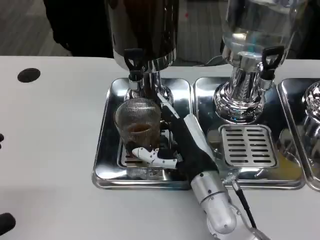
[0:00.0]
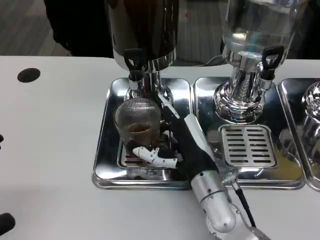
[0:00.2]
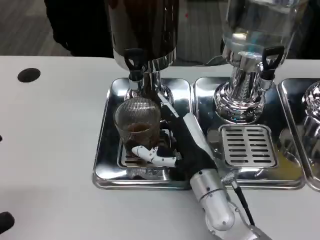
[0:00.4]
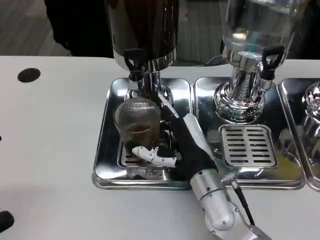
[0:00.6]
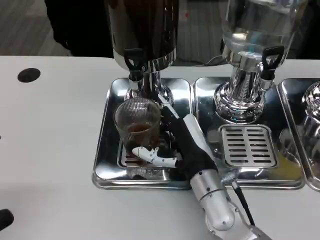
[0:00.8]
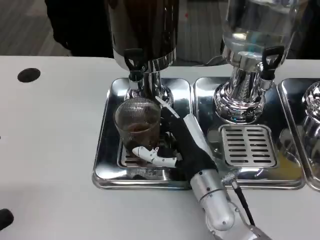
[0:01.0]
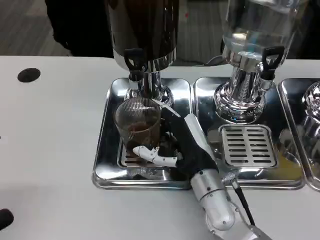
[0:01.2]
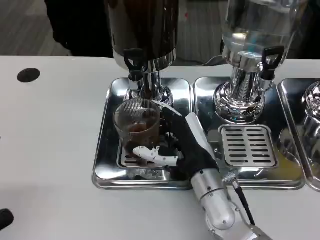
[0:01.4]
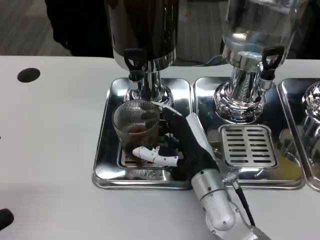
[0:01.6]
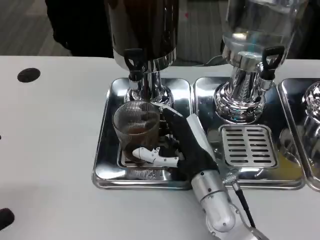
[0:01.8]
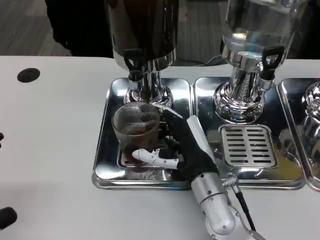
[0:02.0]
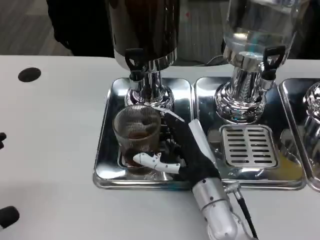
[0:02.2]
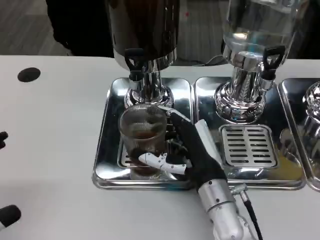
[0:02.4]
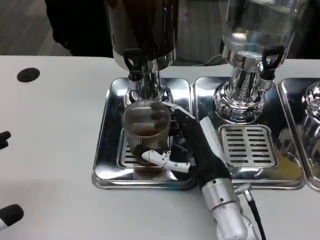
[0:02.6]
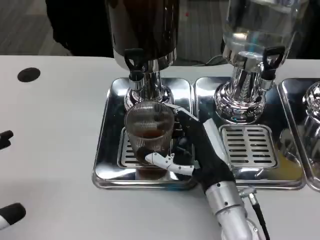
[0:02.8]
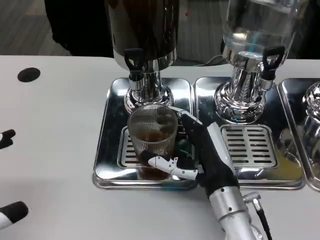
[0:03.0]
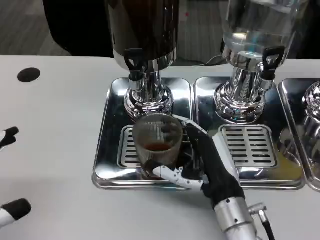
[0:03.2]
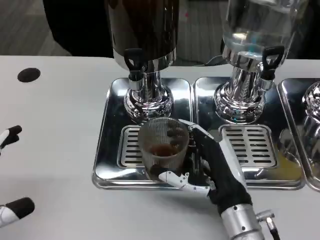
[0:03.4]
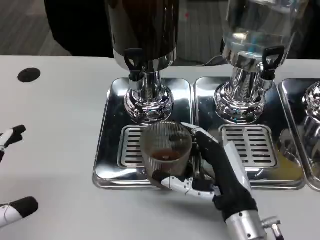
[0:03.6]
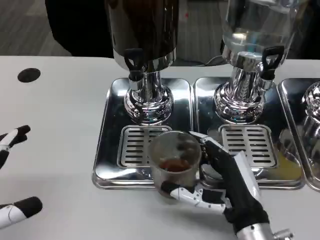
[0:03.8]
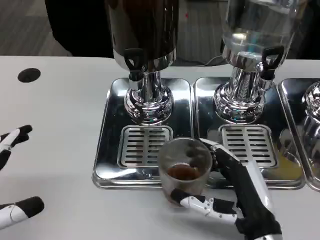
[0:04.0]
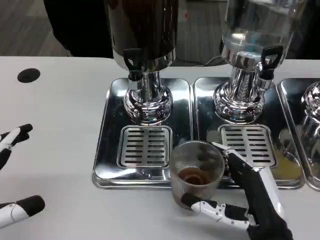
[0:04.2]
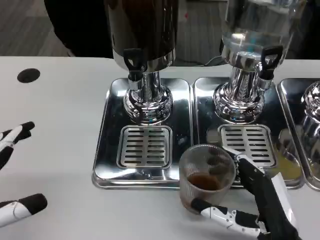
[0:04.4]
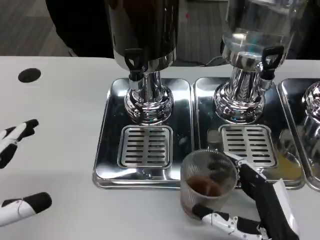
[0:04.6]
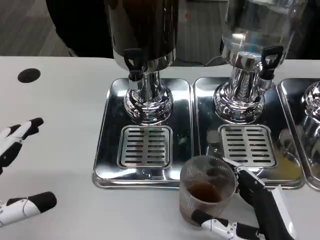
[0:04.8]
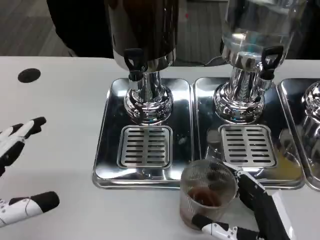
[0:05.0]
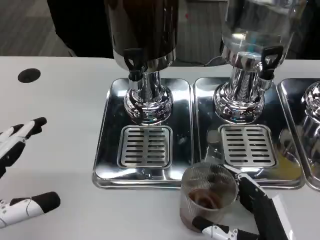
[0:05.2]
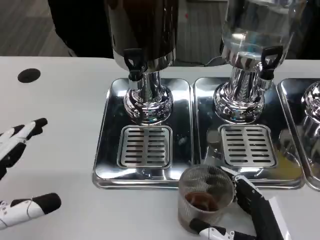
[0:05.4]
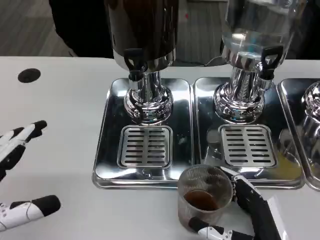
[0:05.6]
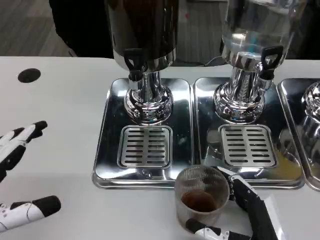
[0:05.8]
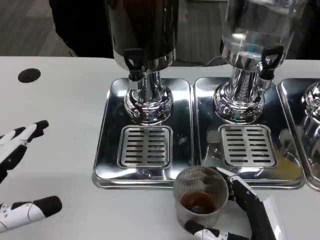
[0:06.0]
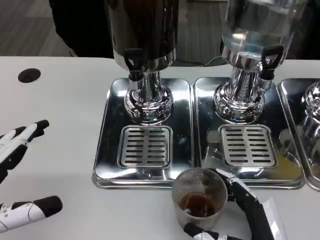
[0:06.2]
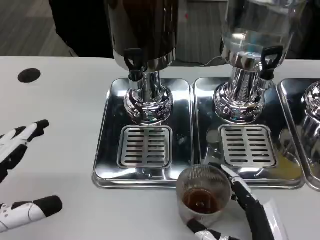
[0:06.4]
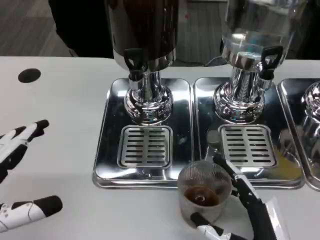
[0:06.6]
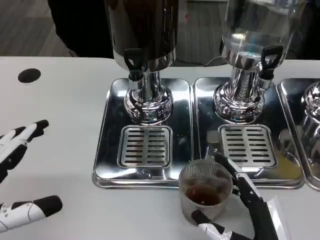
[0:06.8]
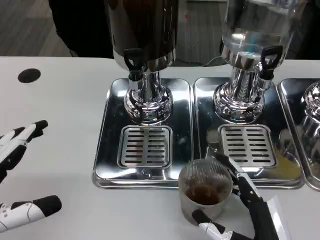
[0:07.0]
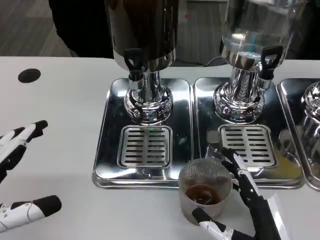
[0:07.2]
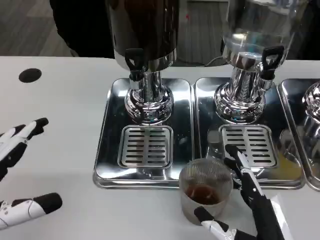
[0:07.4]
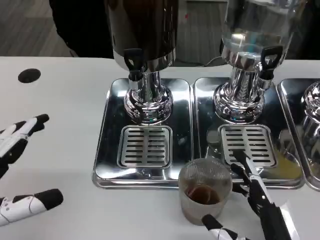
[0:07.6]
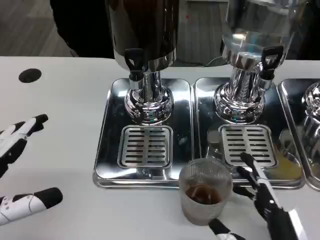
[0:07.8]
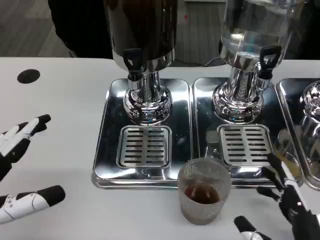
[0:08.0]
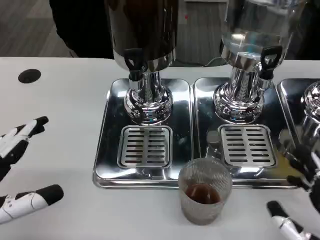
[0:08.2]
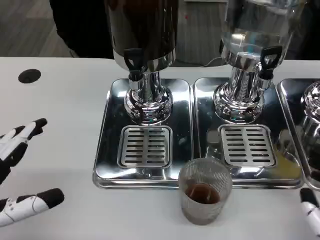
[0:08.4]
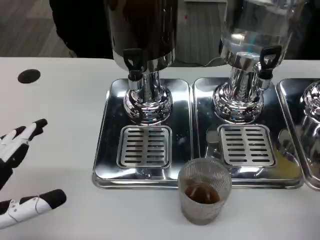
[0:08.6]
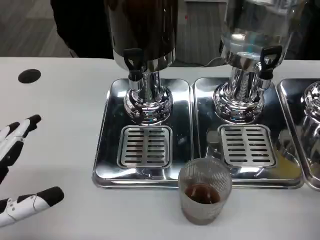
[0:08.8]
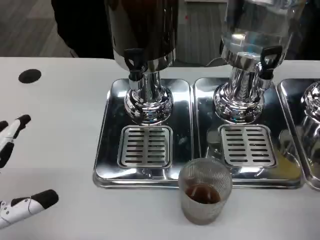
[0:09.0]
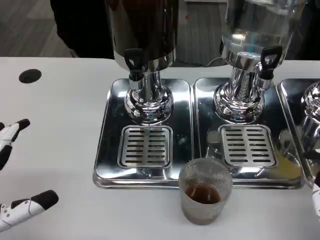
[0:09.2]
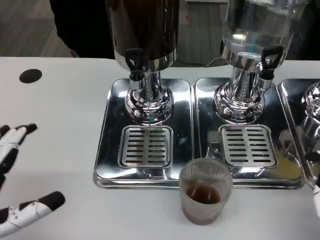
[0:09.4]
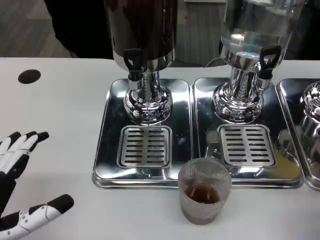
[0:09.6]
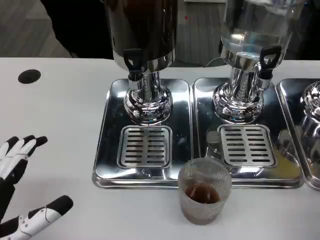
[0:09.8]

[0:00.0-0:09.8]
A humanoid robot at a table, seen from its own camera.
Task of the whole recording: Grasp the cup under the faucet to collect the drink, then remove the cup.
0.0 to 1.4 s: Neither hand changes place.
1.4 to 2.8 s: The hands stay close to where they were, moving slightly.
2.8 to 4.2 s: The right hand goes roughly 10 cm backward and to the right.
4.2 to 7.0 s: The hands stay close to where they were, moving slightly.
7.0 to 8.4 s: The right hand travels to the right by some 10 cm.
8.4 to 9.8 s: The left hand changes place by some 5 cm.

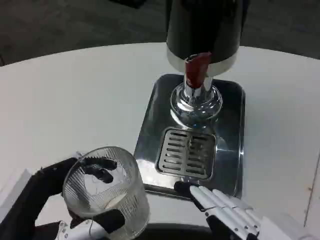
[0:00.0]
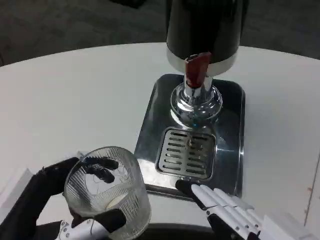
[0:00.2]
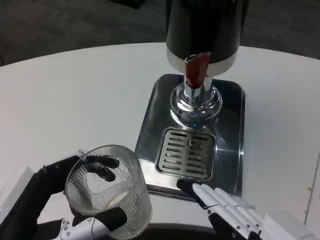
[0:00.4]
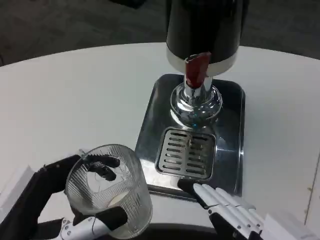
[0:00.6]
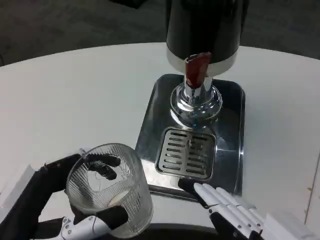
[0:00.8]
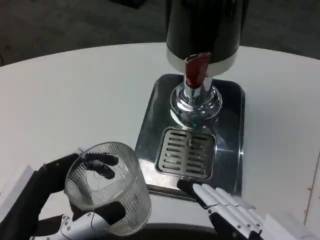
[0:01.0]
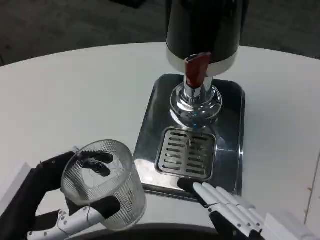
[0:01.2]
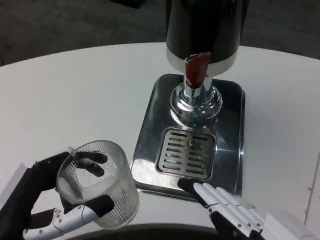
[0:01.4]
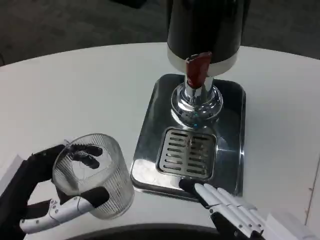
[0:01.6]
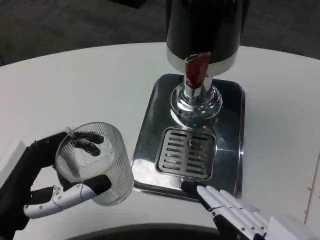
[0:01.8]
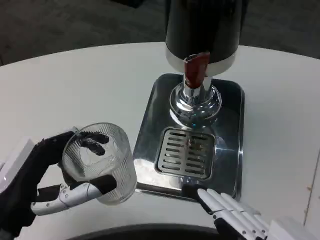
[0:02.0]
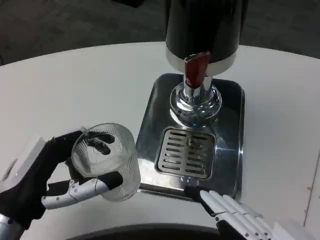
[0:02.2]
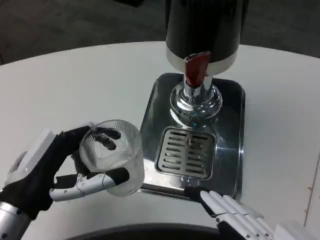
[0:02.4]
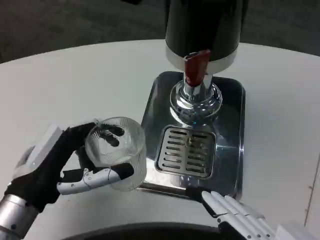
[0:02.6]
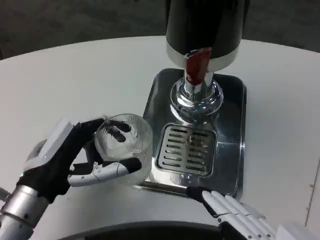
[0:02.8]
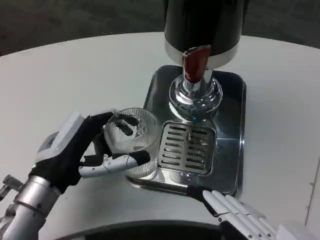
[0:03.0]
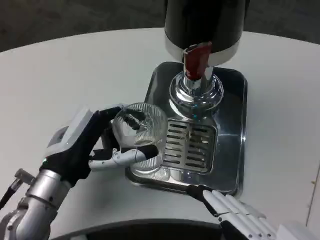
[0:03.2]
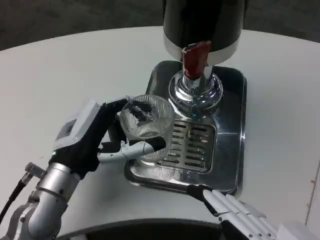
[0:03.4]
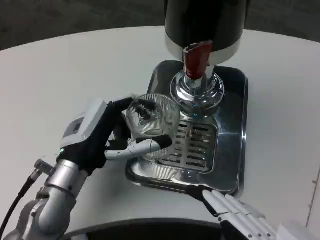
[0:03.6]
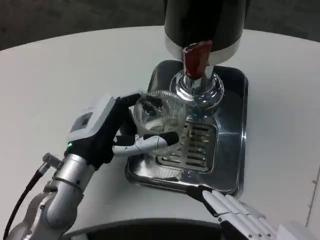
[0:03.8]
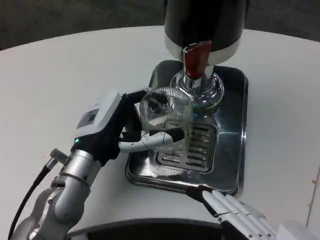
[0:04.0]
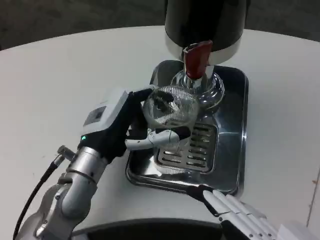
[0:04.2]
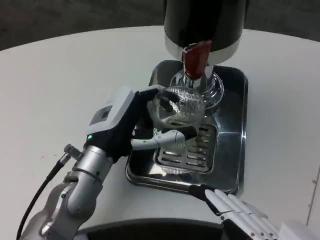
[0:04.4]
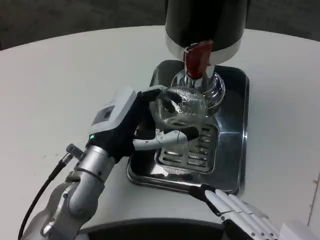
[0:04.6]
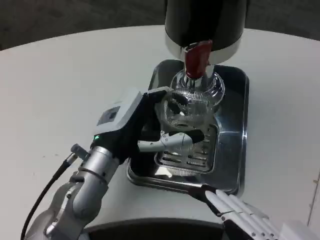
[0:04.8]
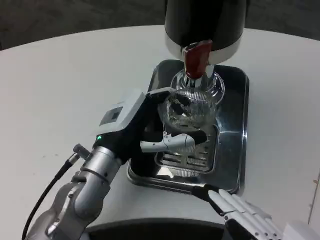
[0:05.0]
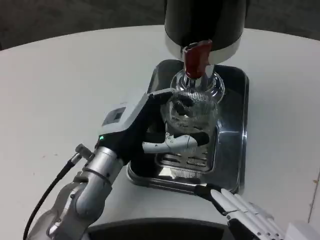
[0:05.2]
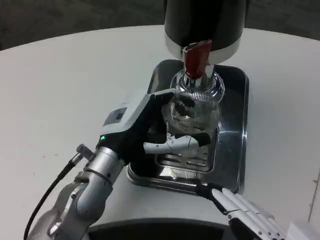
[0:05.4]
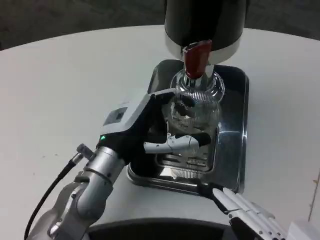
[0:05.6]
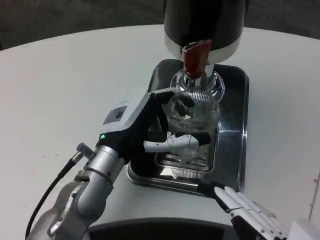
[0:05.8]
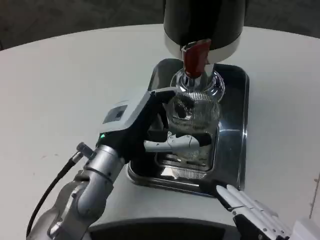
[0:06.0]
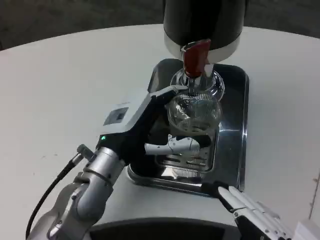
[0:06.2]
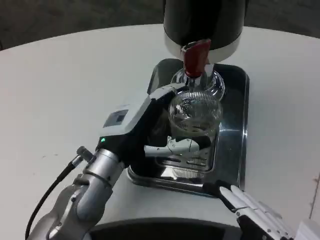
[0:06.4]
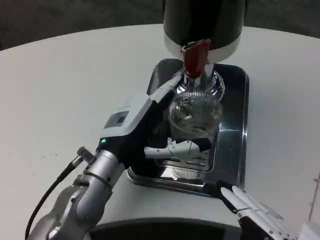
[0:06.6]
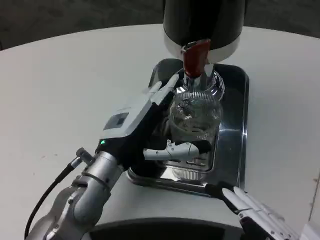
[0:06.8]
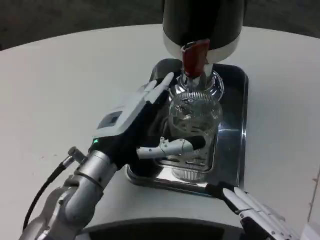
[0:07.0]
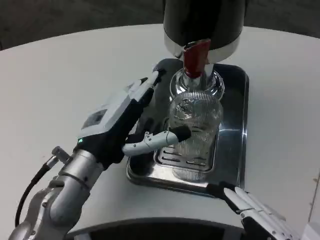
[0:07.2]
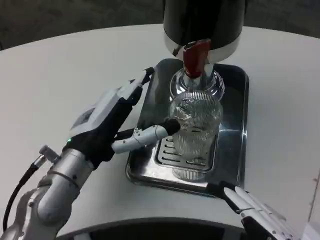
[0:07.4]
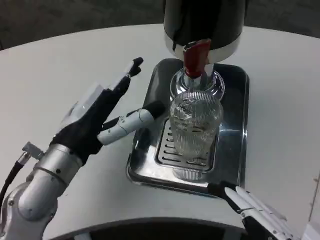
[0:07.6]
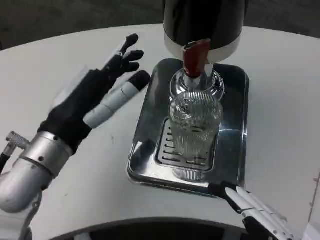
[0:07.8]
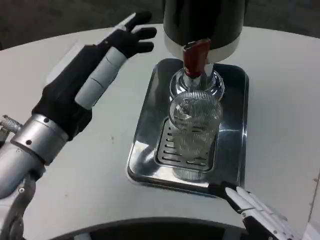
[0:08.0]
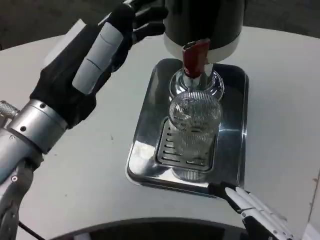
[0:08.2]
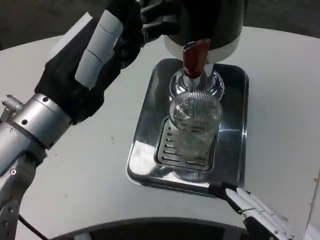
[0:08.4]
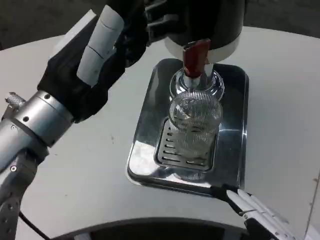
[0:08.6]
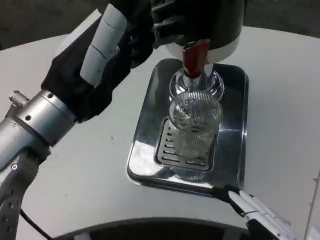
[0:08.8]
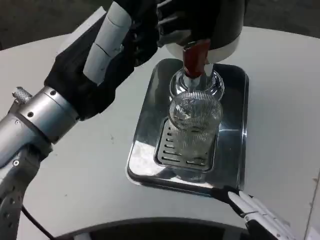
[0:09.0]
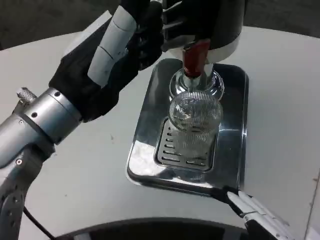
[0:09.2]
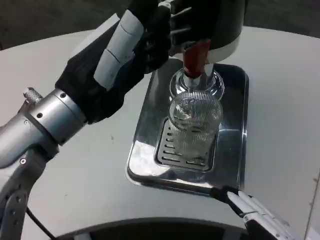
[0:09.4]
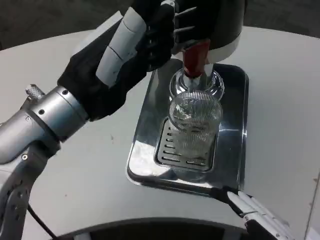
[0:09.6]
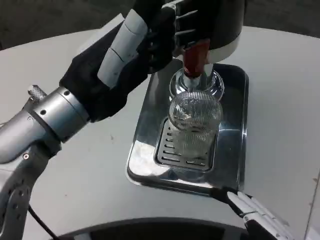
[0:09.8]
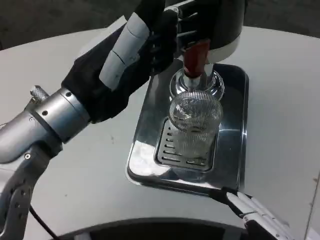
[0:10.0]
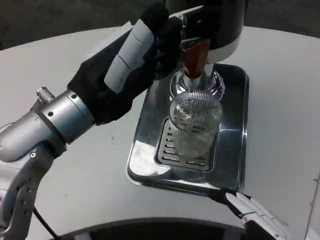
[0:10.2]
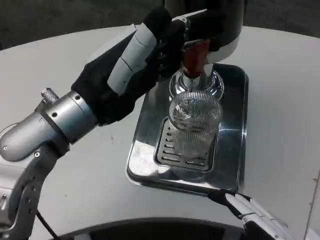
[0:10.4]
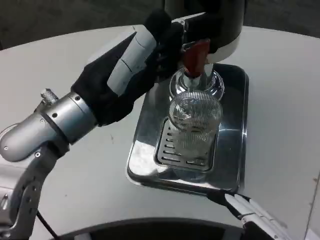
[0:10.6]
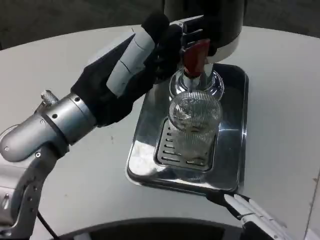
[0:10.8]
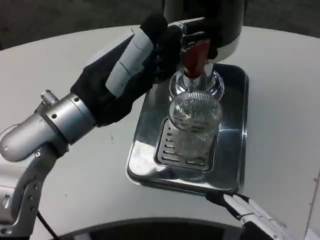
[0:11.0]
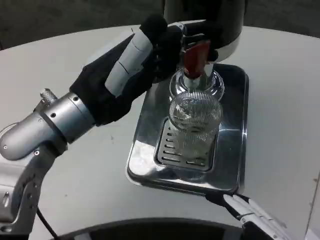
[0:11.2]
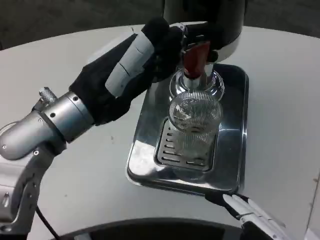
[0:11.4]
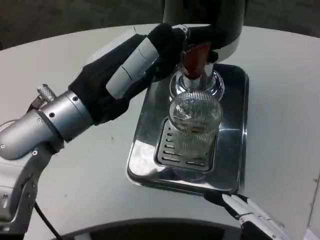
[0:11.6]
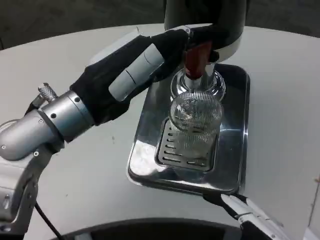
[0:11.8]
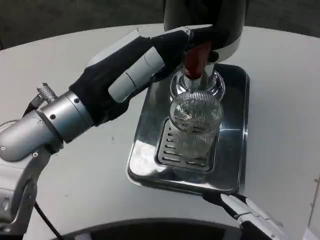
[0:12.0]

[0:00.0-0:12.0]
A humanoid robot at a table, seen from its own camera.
Task of the whole recording: Grasp the cup under the faucet to collect the drink, then remove the cup.
0.0 to 1.6 s: The hands move only a little.
1.6 to 3.0 s: The left hand moves forward, some 10 cm.
3.0 to 4.4 s: The left hand heads to the right, covering about 5 cm.
6.0 to 7.6 s: The left hand shifts by roughly 5 cm.
7.6 to 9.0 s: The left hand goes about 10 cm upward.
10.4 to 12.0 s: There are only small adjustments of the hands.

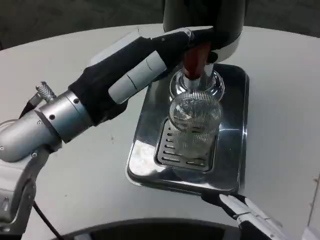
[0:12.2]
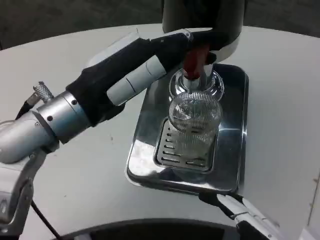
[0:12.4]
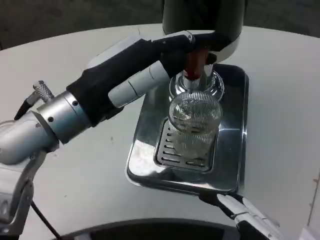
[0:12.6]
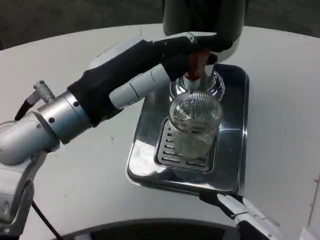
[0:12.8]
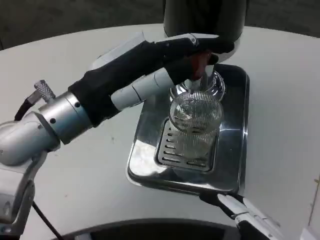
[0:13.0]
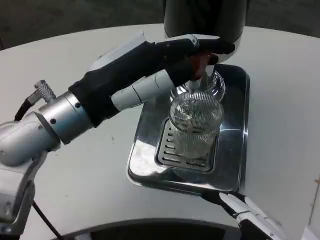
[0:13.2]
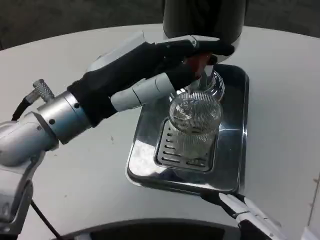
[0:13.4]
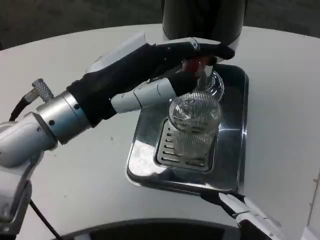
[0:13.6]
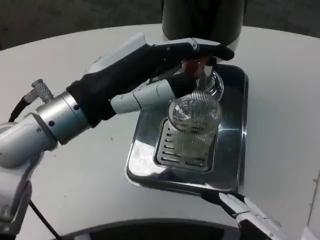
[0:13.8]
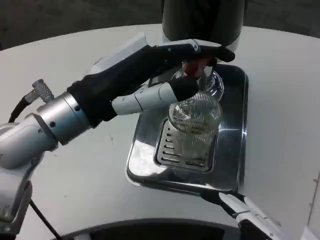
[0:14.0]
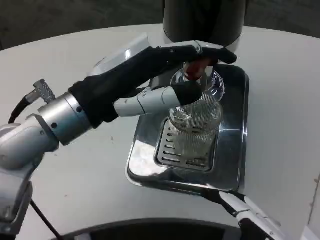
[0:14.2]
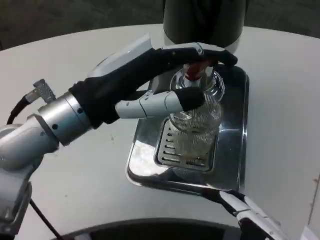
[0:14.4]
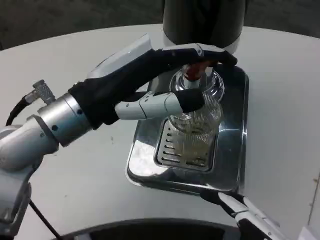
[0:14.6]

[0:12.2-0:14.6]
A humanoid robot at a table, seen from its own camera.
Task of the whole recording: Grasp the cup under the faucet to collect the drink, then remove the cup.
12.2 to 13.4 s: There are only small adjustments of the hands.
13.4 to 14.6 s: The hands move only a little.
